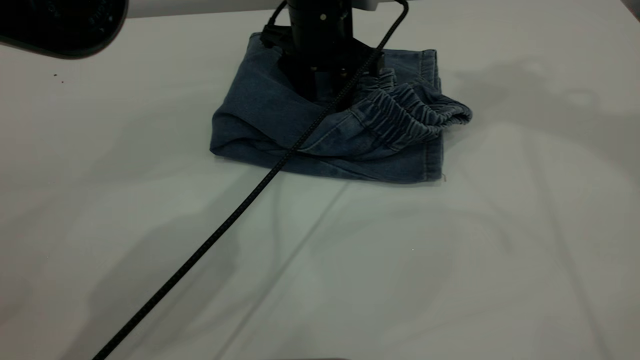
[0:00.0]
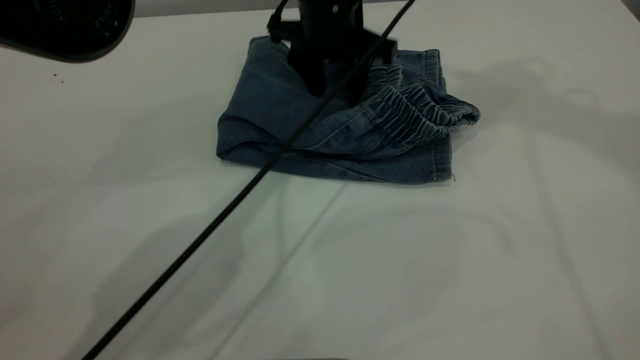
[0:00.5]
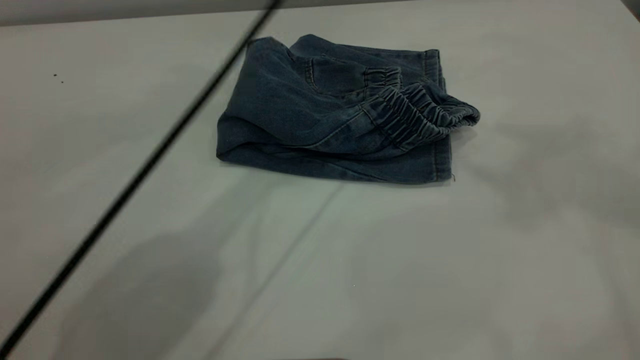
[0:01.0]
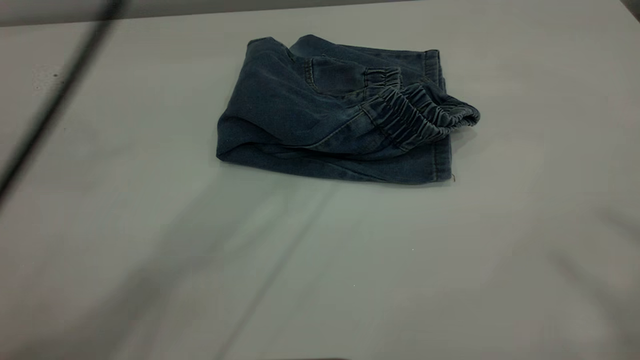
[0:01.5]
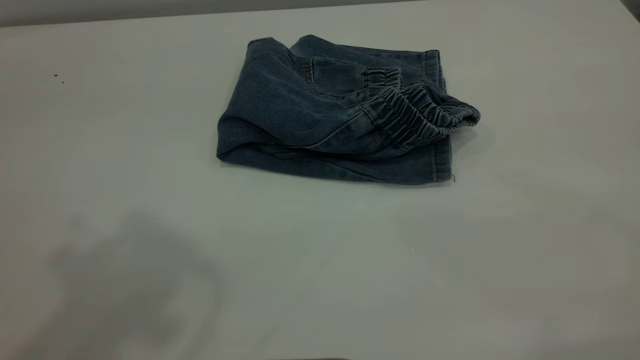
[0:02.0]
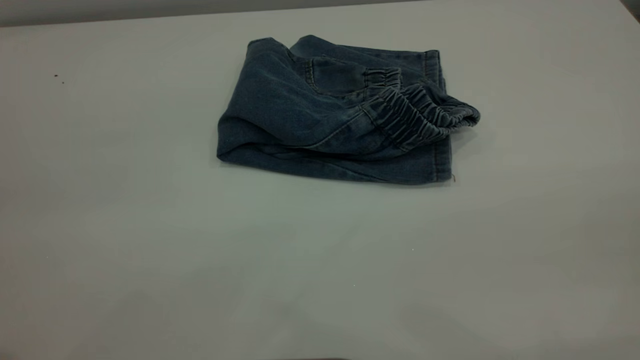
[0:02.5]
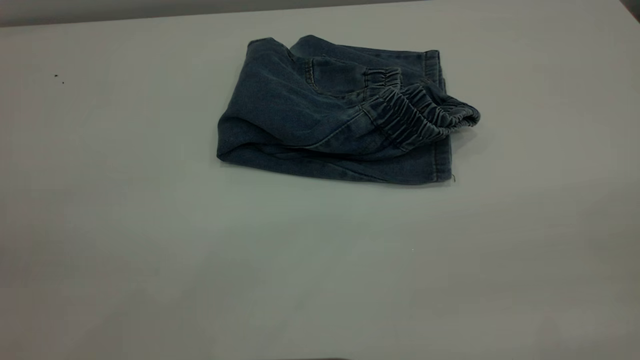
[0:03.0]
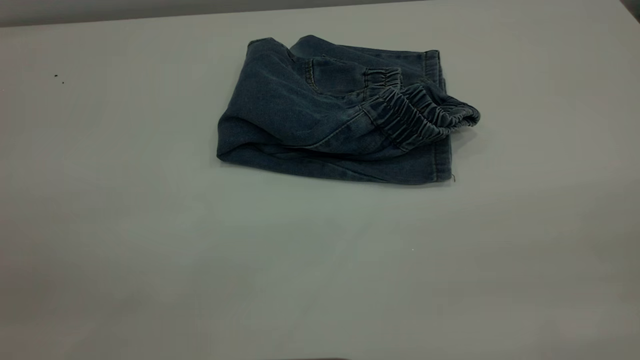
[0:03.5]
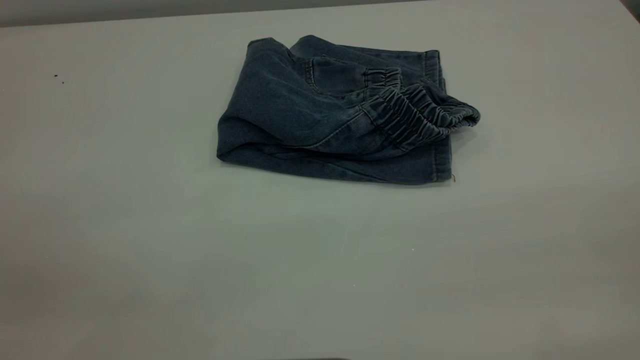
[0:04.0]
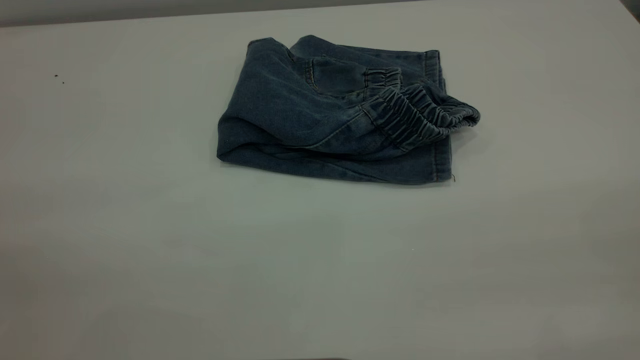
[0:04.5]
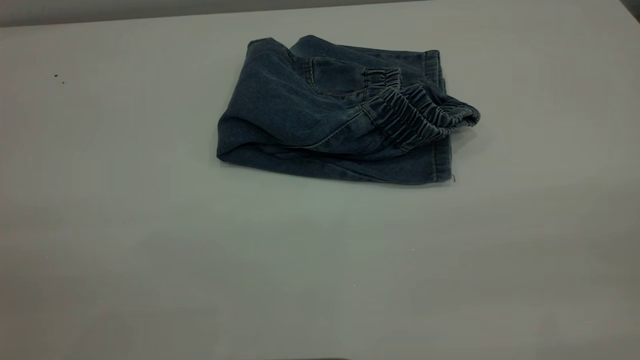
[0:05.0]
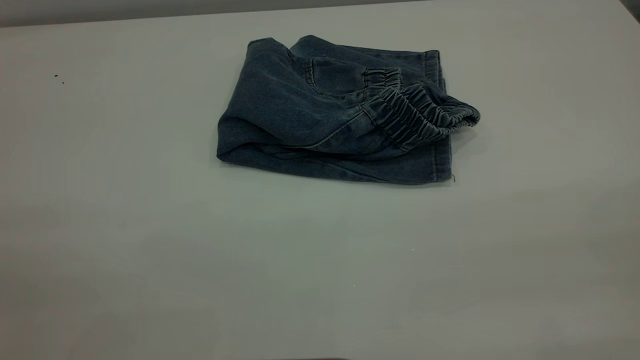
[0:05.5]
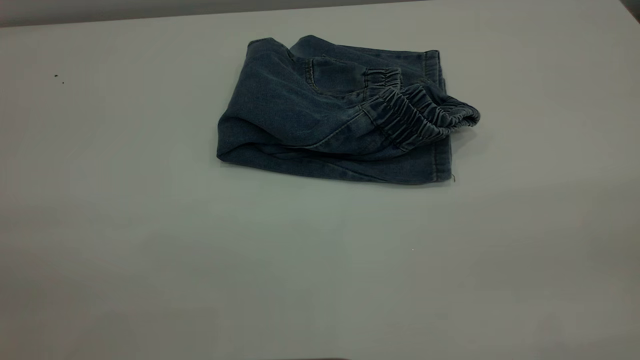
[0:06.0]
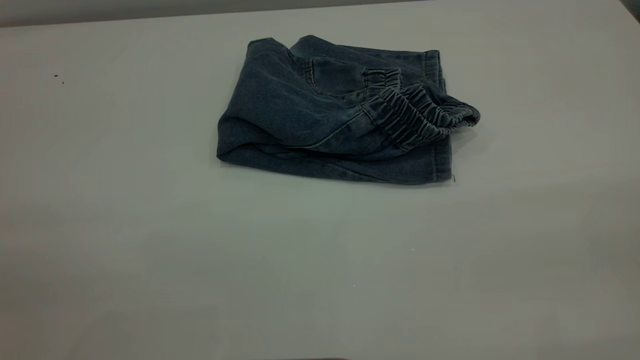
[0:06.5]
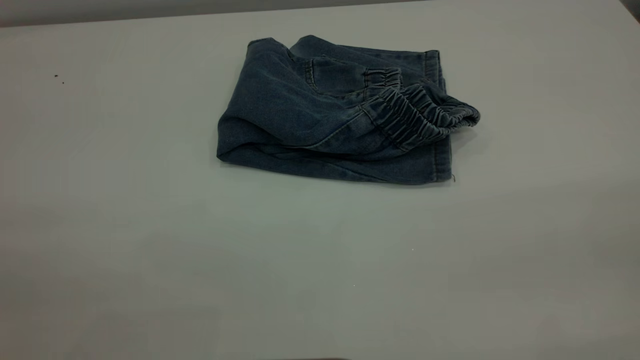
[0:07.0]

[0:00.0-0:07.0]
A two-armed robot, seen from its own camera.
0:00.0 to 0:02.0: The right gripper shifts some 40 cm backward, while the left gripper is displaced upward, backward and to the left by about 50 cm.

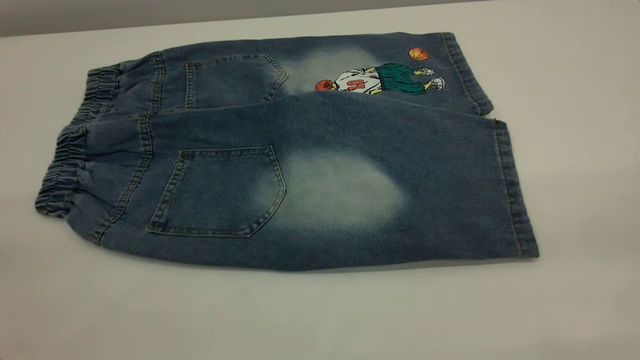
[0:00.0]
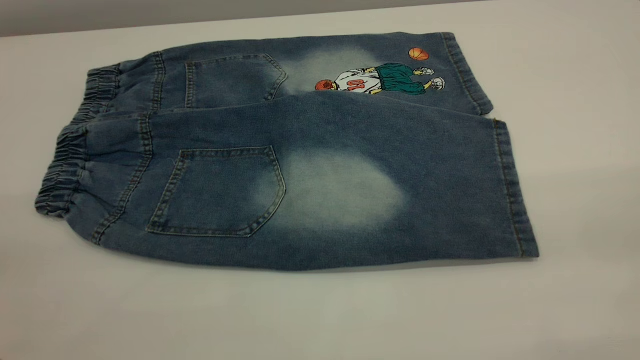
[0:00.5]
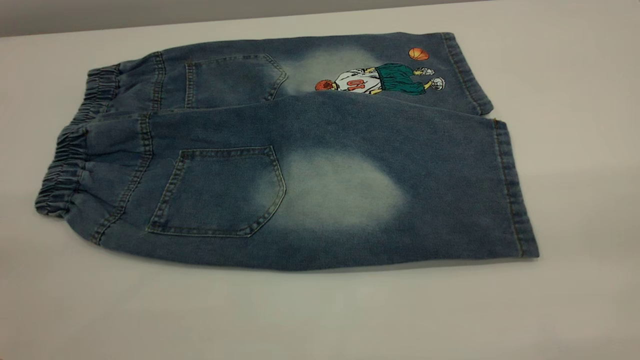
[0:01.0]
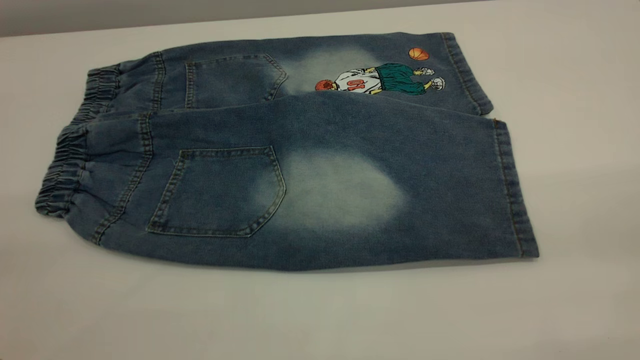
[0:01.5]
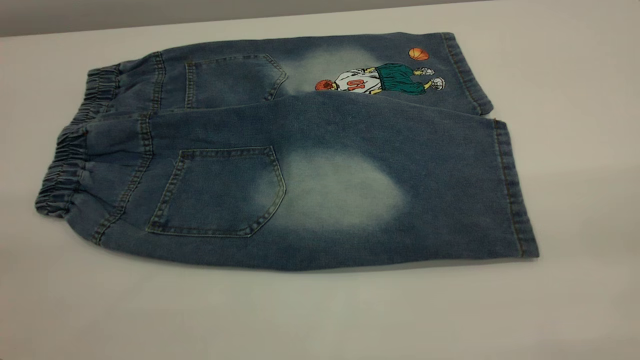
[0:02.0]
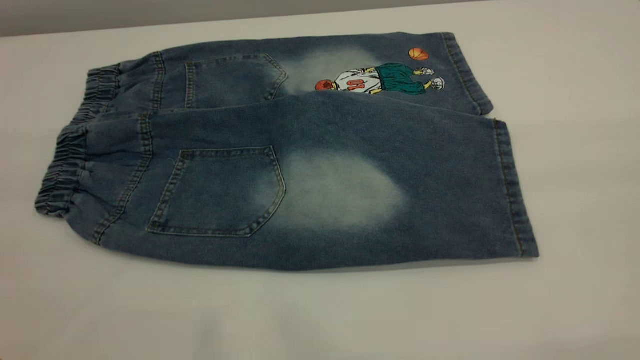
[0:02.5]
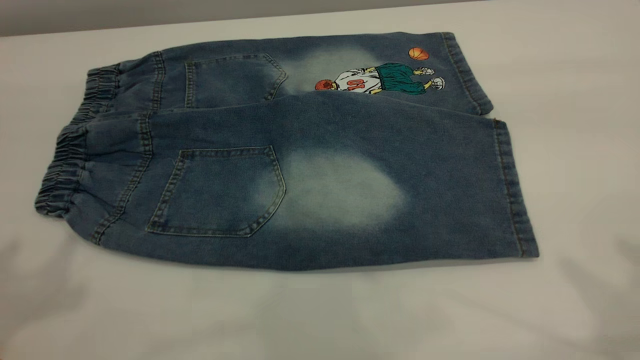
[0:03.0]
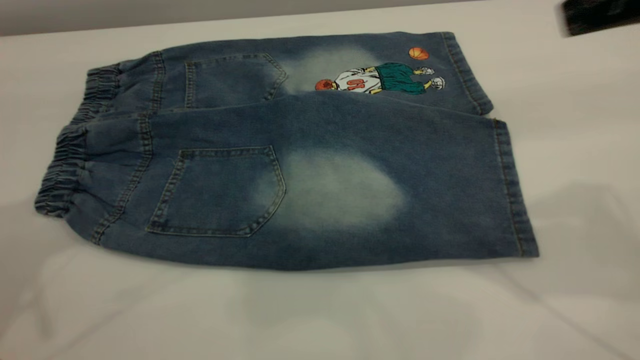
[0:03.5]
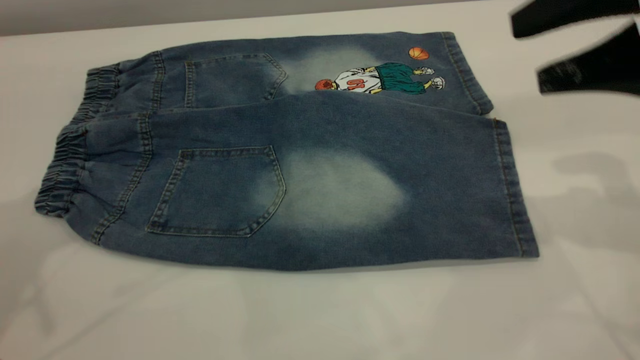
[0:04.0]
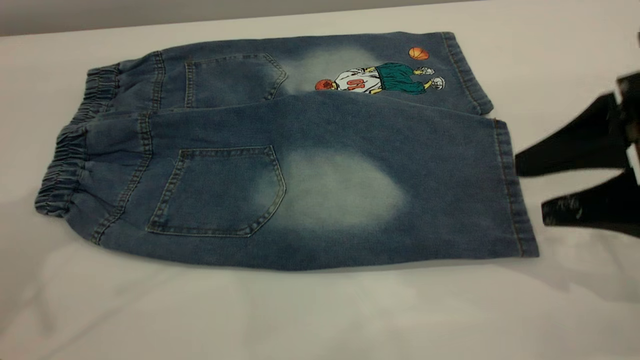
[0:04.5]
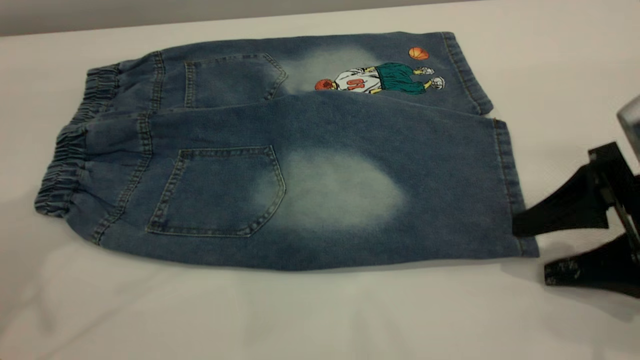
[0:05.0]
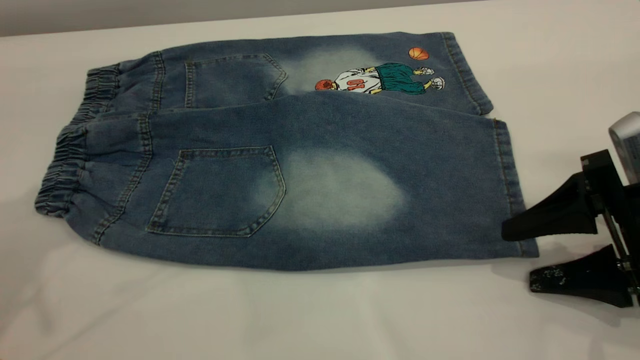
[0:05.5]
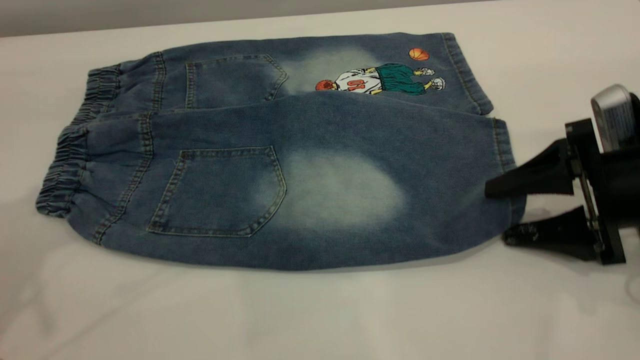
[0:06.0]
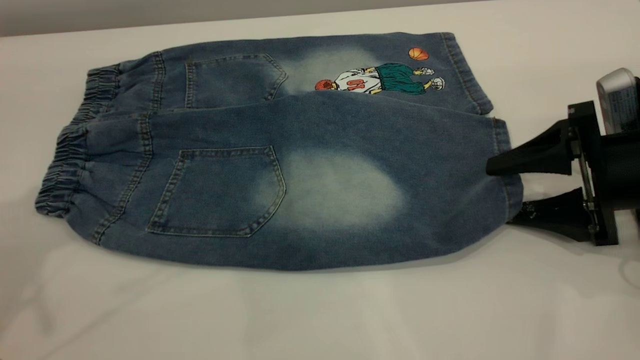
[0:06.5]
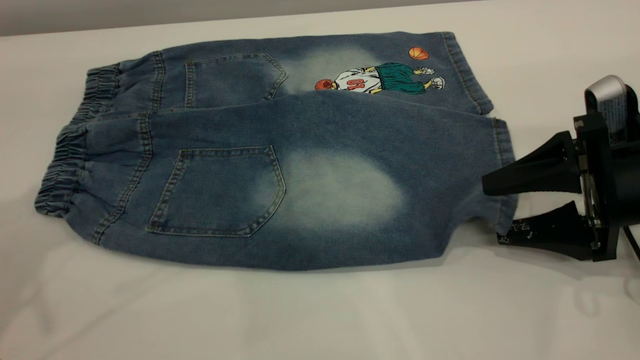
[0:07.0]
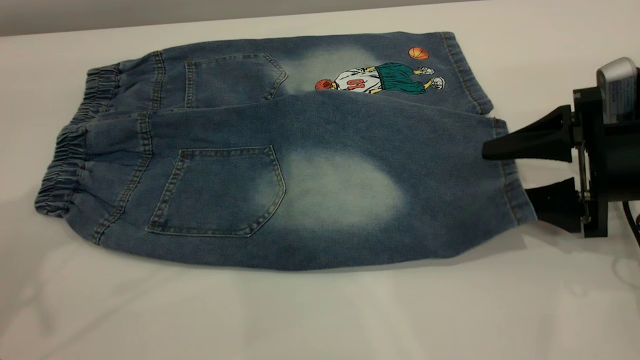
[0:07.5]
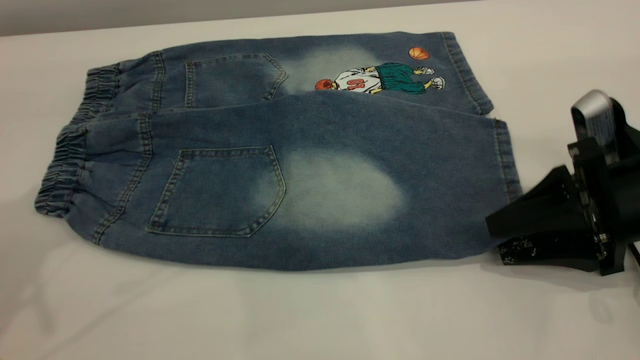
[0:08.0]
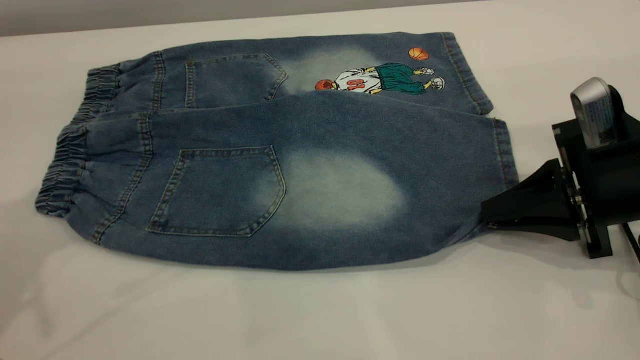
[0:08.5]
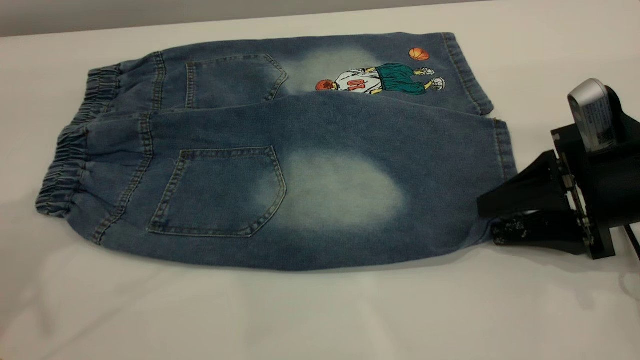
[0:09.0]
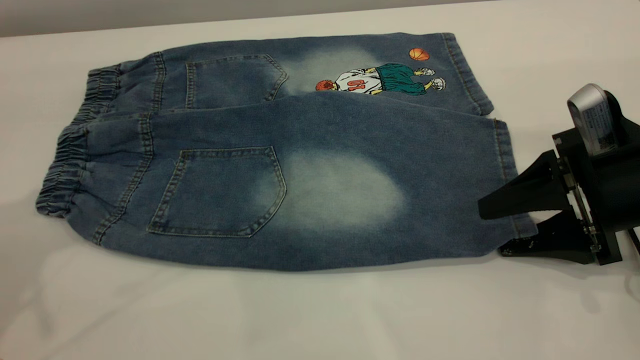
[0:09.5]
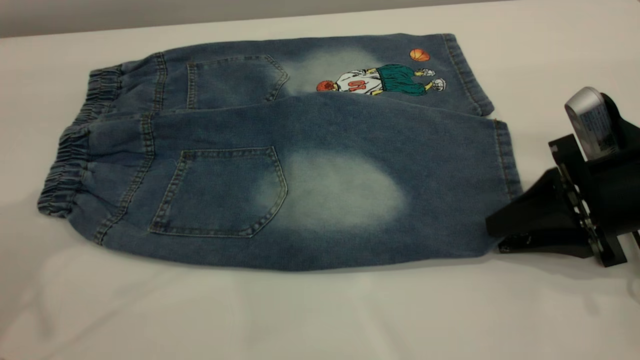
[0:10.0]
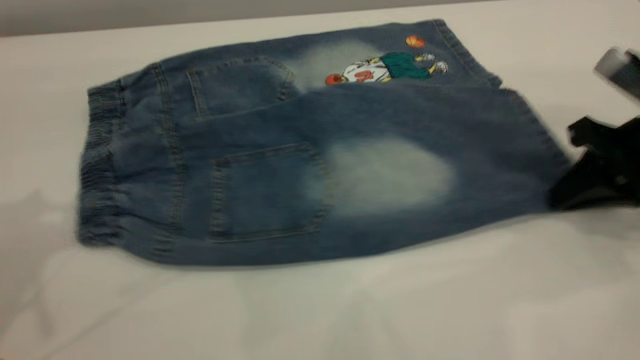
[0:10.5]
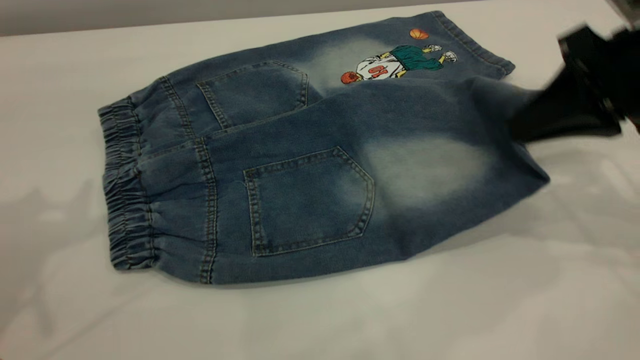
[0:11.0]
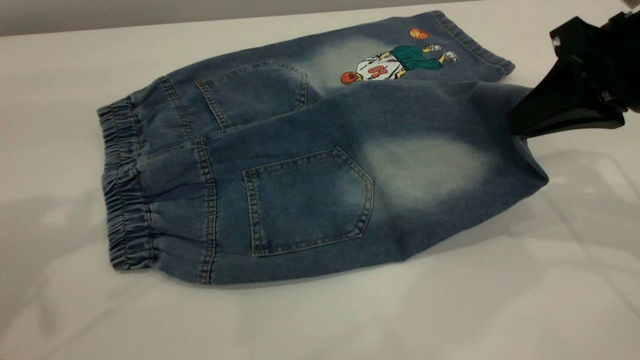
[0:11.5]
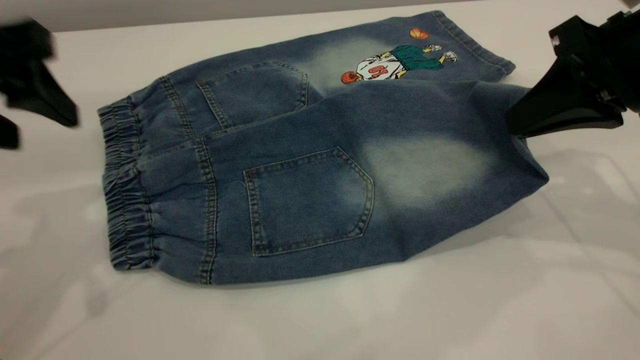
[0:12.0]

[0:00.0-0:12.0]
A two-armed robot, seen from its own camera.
0:00.0 to 0:02.0: Both grippers stay about where they are.
0:02.0 to 0:04.0: The right gripper travels forward and downward by some 30 cm.
0:04.0 to 0:06.0: The right gripper shifts roughly 15 cm downward.
0:06.0 to 0:08.0: The right gripper closes.
0:08.0 to 0:10.0: The grippers move only a little.
0:10.0 to 0:12.0: The right gripper goes roughly 15 cm upward; the left gripper goes some 10 cm downward.

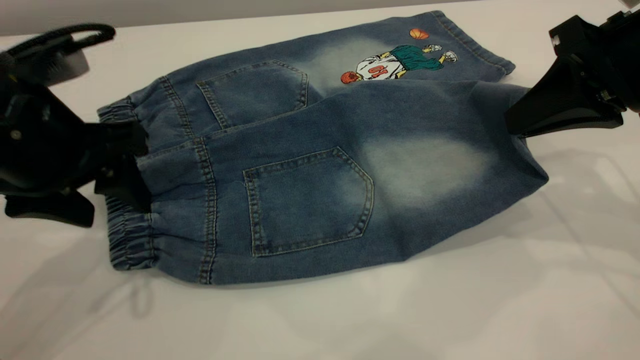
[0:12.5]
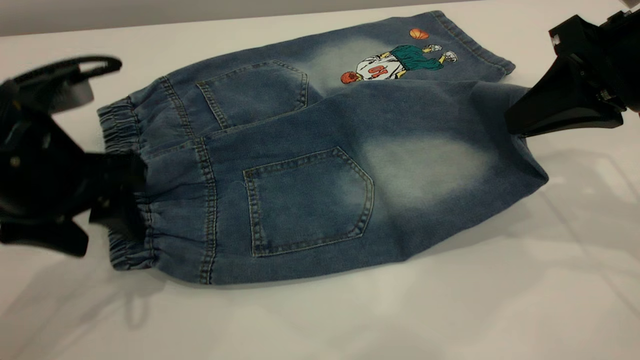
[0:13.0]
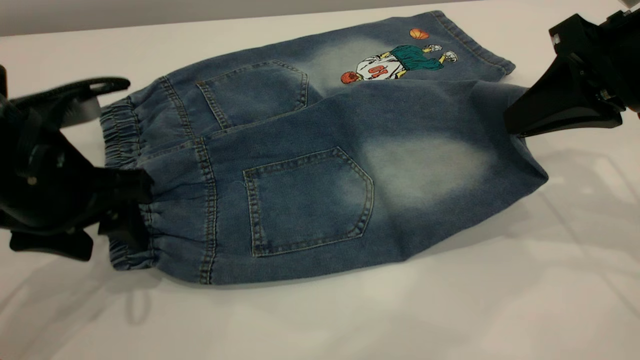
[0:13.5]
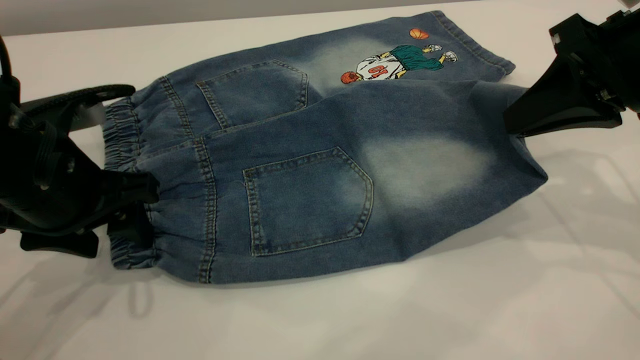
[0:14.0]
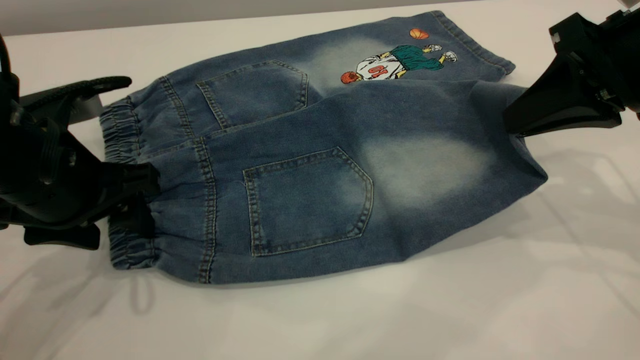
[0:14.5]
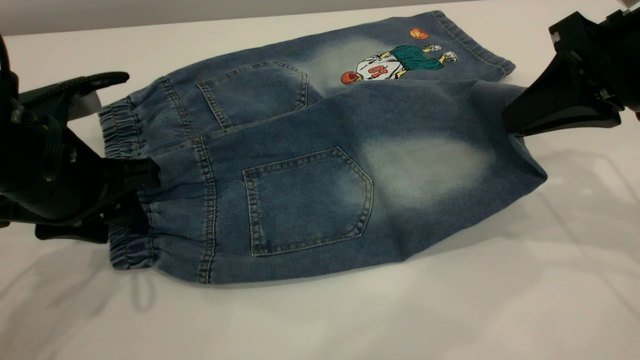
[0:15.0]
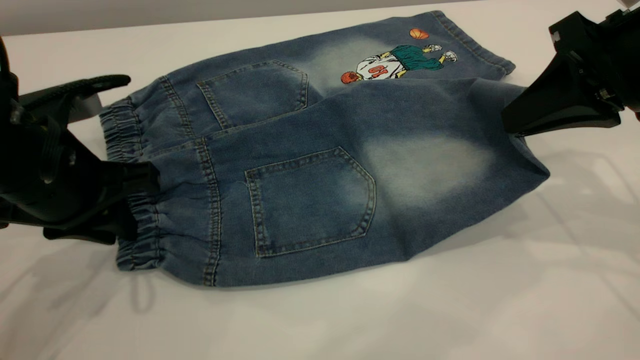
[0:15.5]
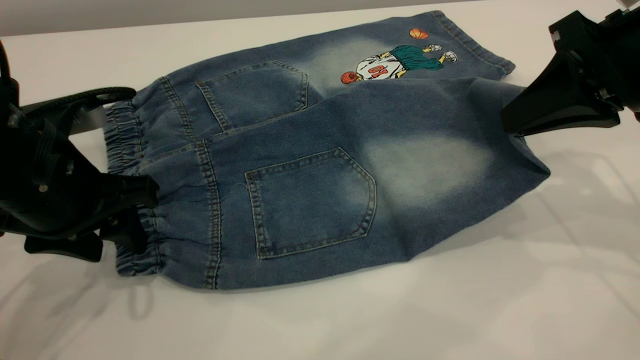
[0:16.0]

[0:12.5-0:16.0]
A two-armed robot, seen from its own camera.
0:12.5 to 0:14.5: The grippers stay close to where they were, moving slightly.
0:14.5 to 0:16.0: The left gripper closes, then opens again.
